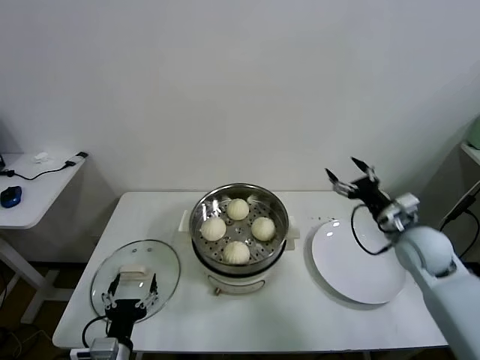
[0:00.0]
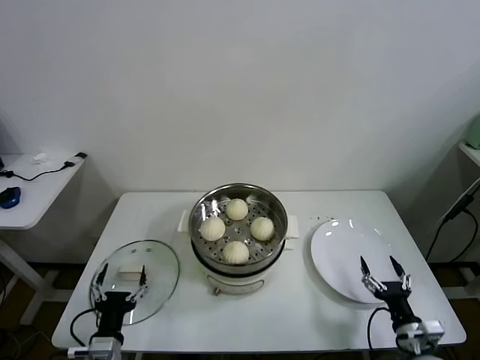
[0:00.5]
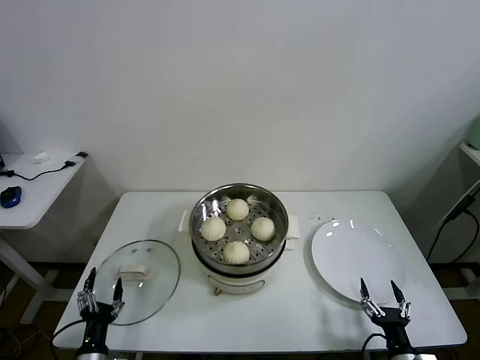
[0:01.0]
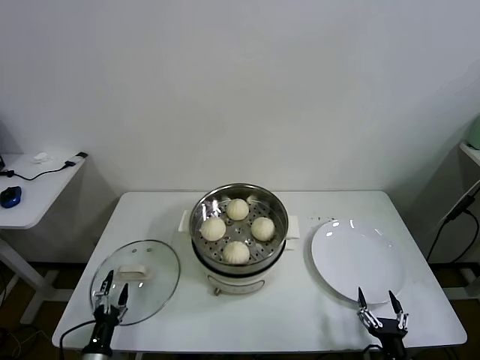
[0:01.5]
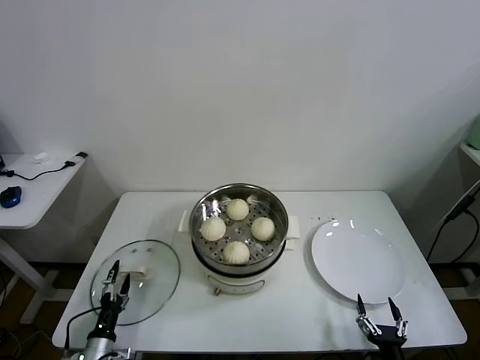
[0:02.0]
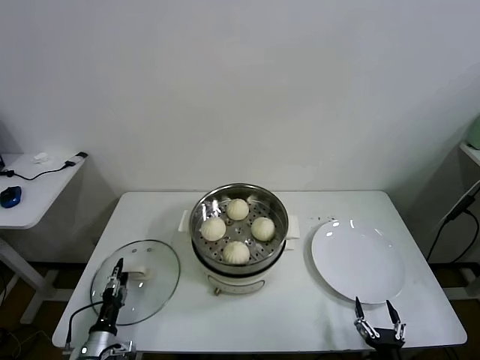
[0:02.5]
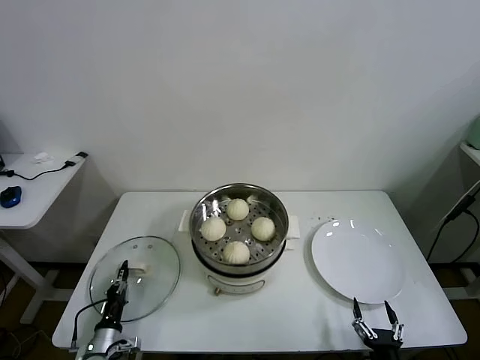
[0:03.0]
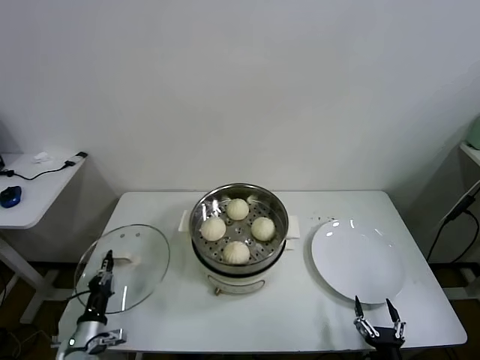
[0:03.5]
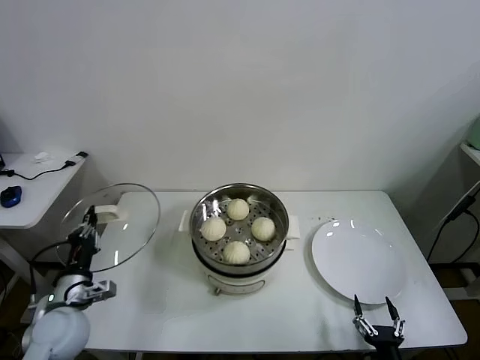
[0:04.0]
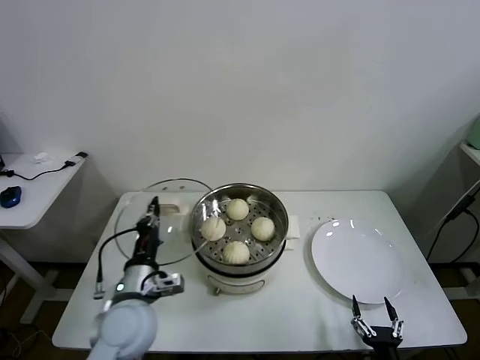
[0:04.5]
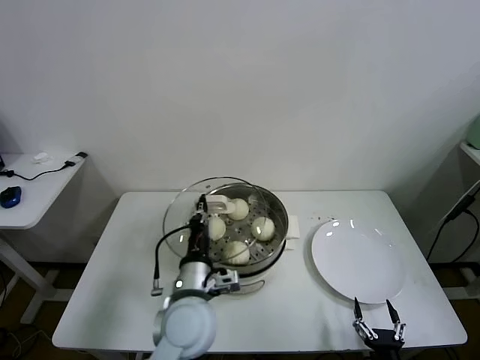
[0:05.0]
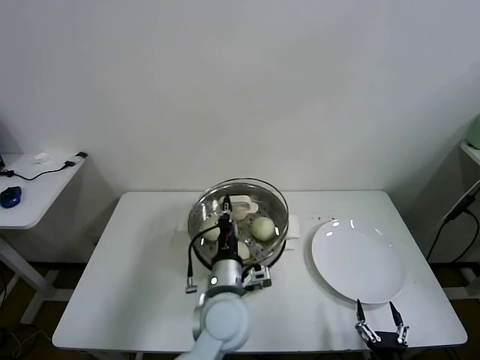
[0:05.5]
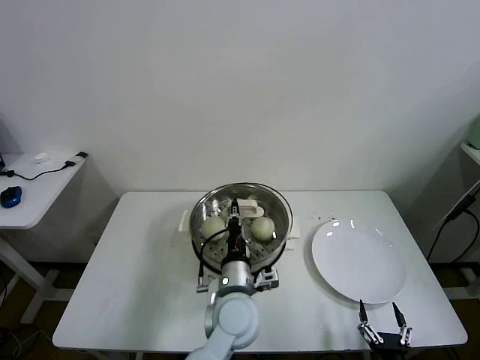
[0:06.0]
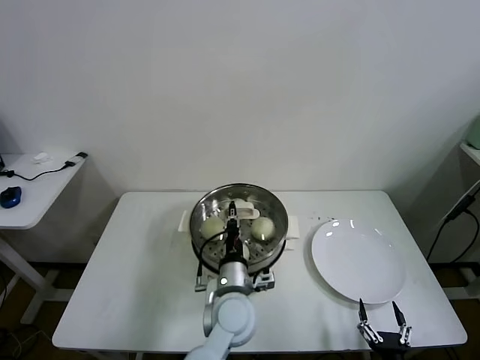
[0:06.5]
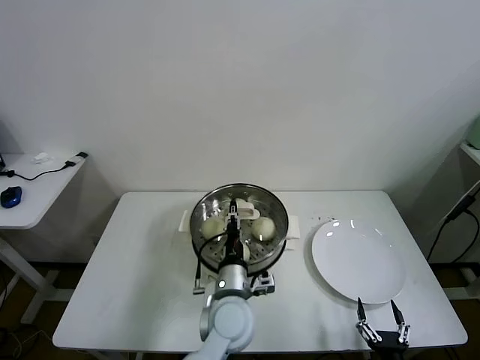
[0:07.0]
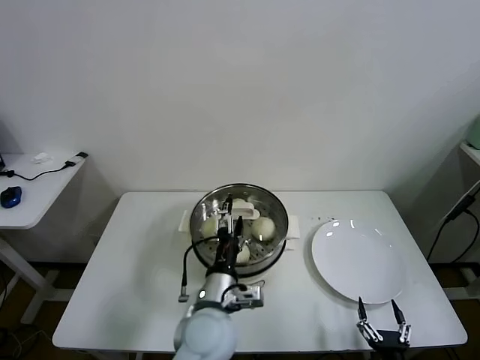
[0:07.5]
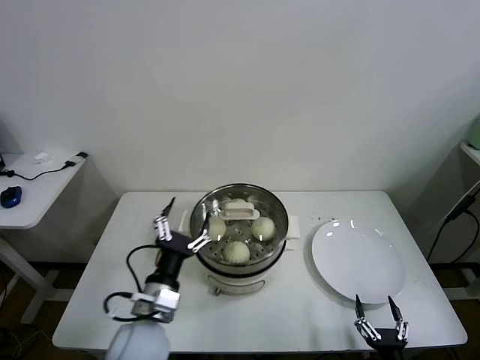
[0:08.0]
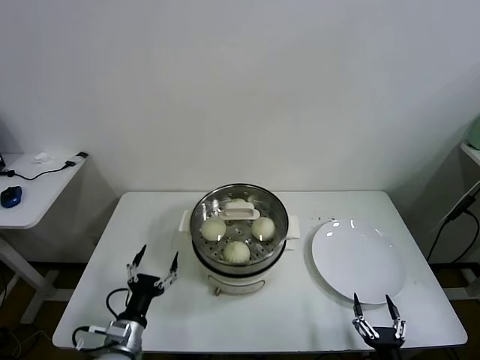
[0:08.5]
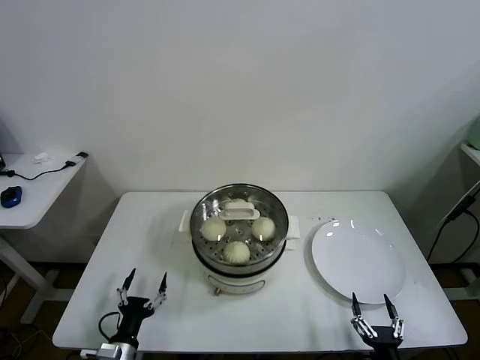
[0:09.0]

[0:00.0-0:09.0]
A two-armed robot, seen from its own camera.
Task of the whole recording: take steamed baozi put them in steamer.
Step, 0:00.0 to 0:03.0: Grasp the pot lid with left gripper.
Step, 0:03.5 to 0:07.0: Place the pot lid on the steamer with left gripper.
0:00.0 to 0:02.0: The right gripper shifts roughly 35 cm backward and downward; the left gripper shifts roughly 20 cm downward and to the left.
0:02.0 to 0:04.5: The left gripper is displaced upward and to the right by approximately 25 cm, and closes its fingers.
0:04.5 to 0:07.0: The left gripper moves to the right, approximately 20 cm.
0:07.0 to 0:09.0: The left gripper travels to the left, downward and backward by approximately 35 cm, and opens.

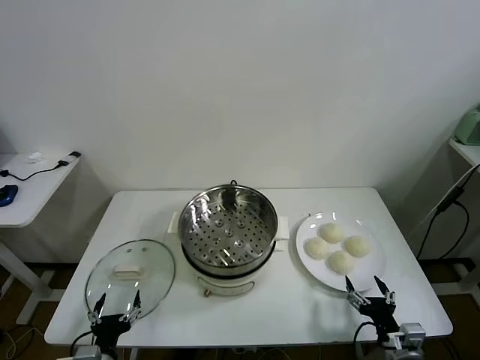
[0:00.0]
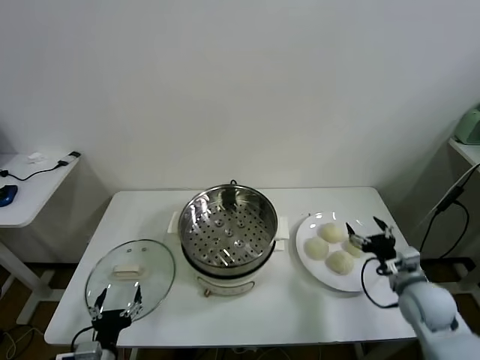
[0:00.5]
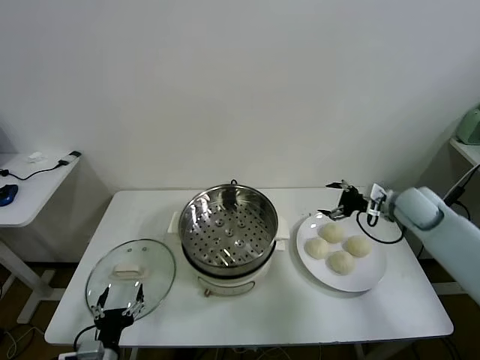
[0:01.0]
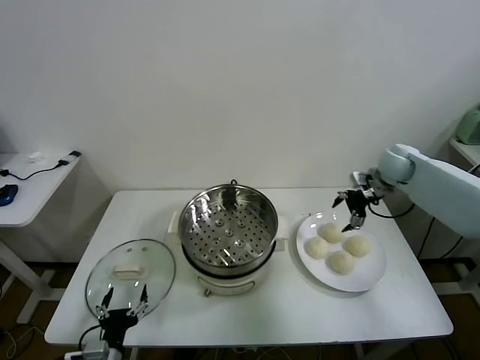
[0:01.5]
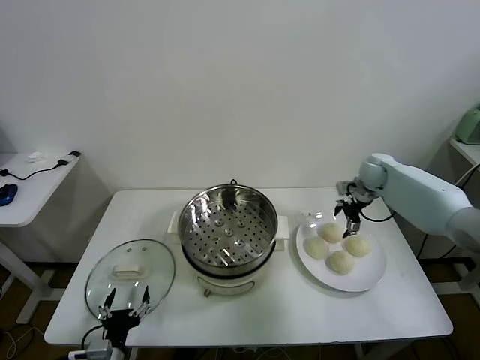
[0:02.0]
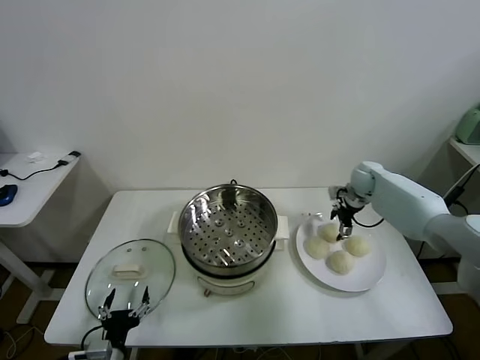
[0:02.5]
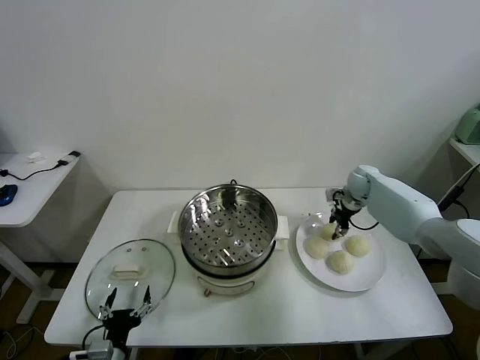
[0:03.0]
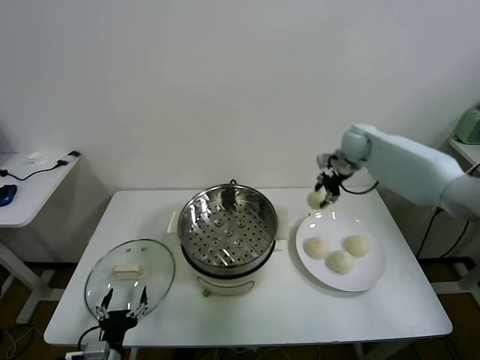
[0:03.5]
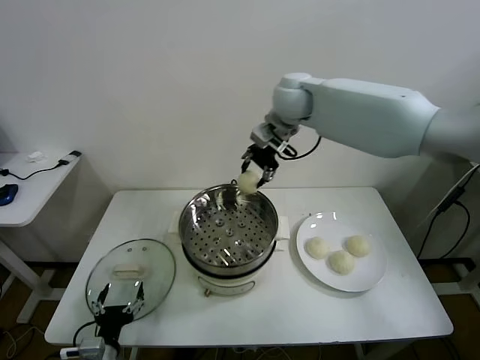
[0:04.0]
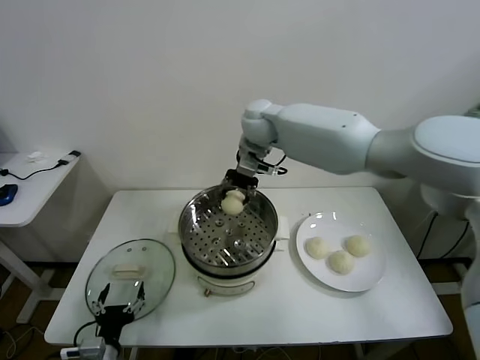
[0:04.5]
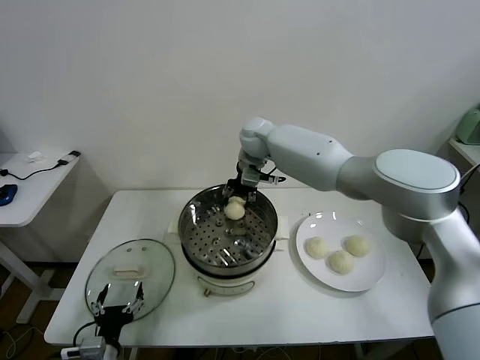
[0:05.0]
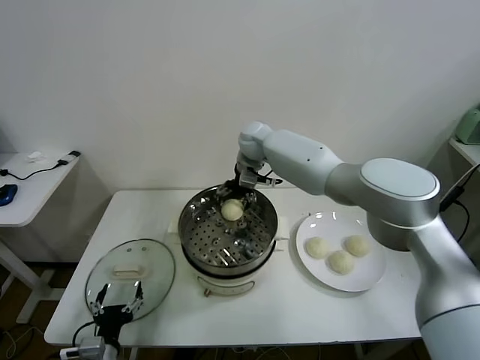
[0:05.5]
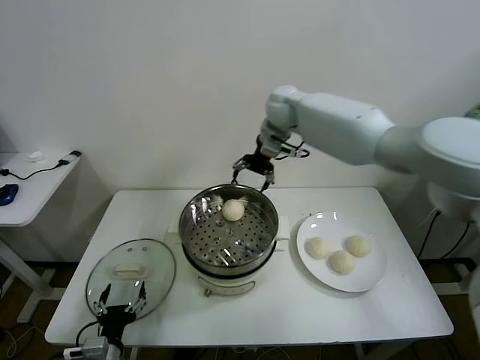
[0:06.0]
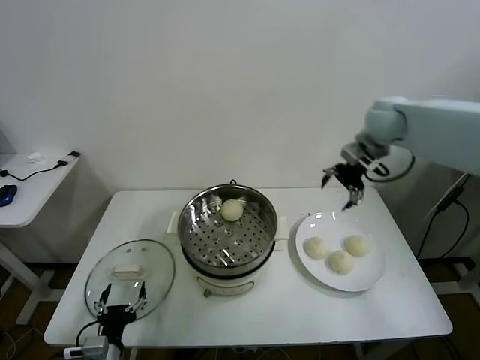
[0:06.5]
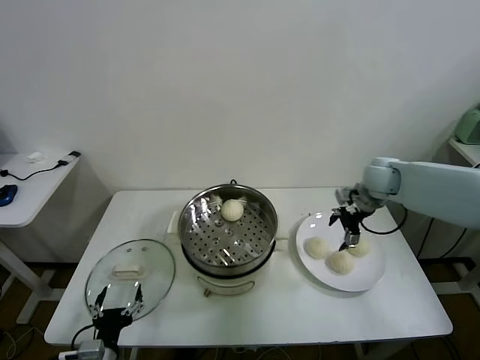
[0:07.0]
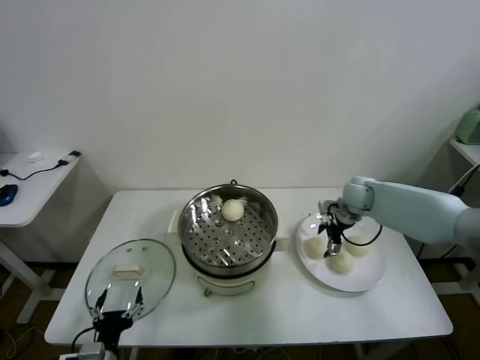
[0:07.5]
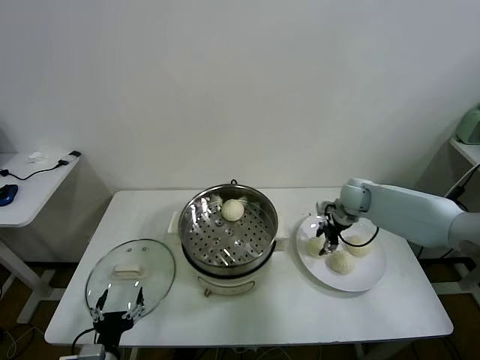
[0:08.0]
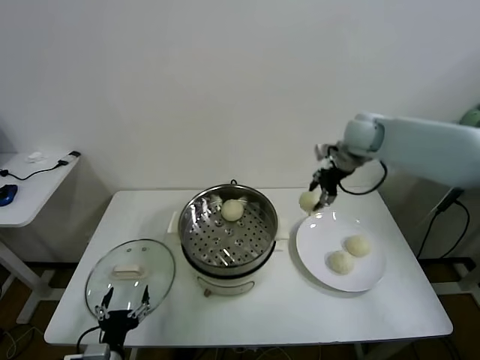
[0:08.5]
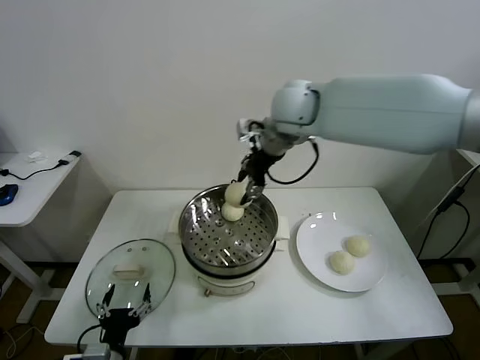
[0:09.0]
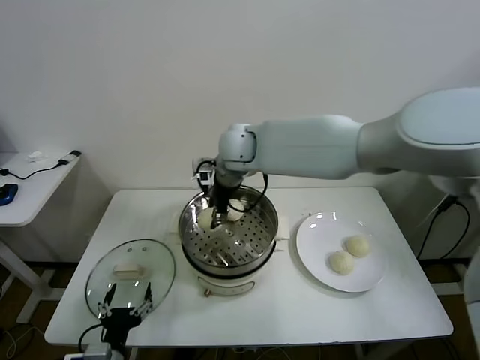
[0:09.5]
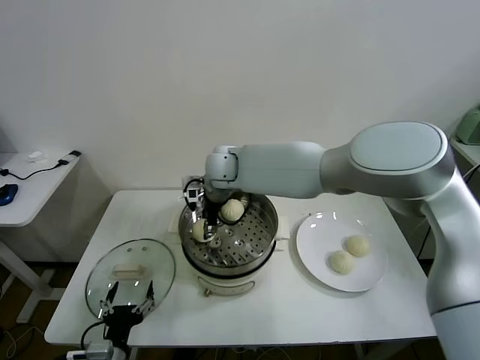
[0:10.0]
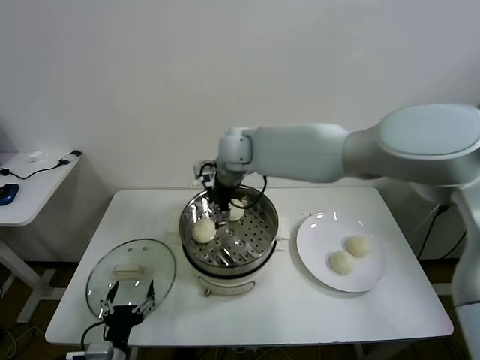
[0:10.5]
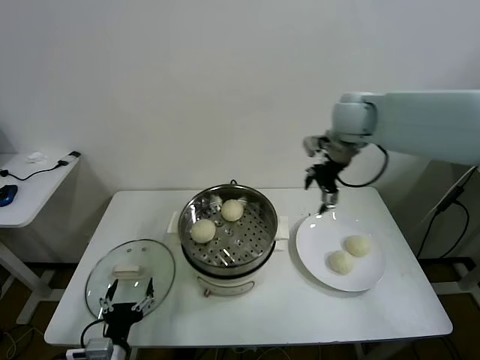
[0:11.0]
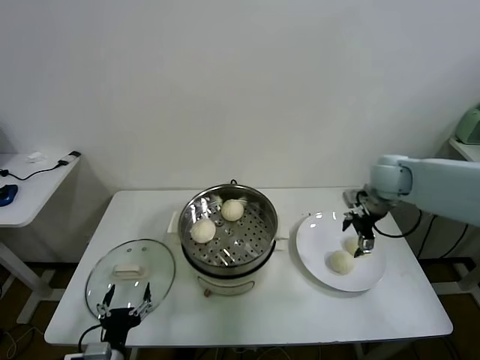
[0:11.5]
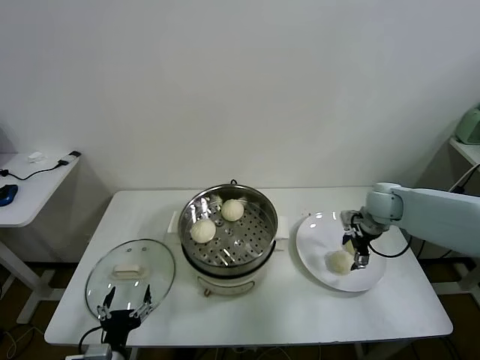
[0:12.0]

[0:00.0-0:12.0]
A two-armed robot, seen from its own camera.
Task of the whole recording: take steamed baozi put them in steamer.
Step, 0:00.0 to 0:02.5: Grasp the baozi in the plate with right gripper.
Step, 0:03.0 to 0:05.0: Place the baozi on the steamer with right gripper.
Step, 0:06.0 to 0:07.5: Grasp the baozi in the plate with right gripper.
Step, 0:08.5 to 0:10.0: Place the baozi on the steamer with right gripper.
0:02.0 to 0:04.0: The right gripper moves to the left and upward, approximately 35 cm, and closes its fingers.
0:04.0 to 0:06.0: The right gripper goes approximately 10 cm to the right and forward, travels downward and back again, roughly 15 cm each way, and opens.
0:06.0 to 0:08.0: The right gripper shifts some 30 cm downward and to the right, and closes.
0:08.0 to 0:10.0: The right gripper is displaced to the left by about 35 cm.
0:10.0 to 0:12.0: The right gripper heads to the right, covering approximately 40 cm, and opens.

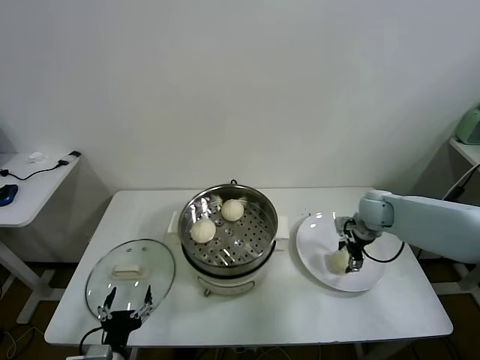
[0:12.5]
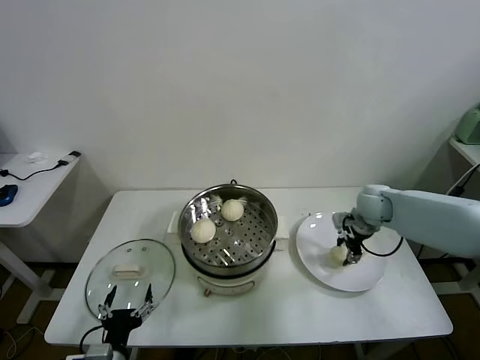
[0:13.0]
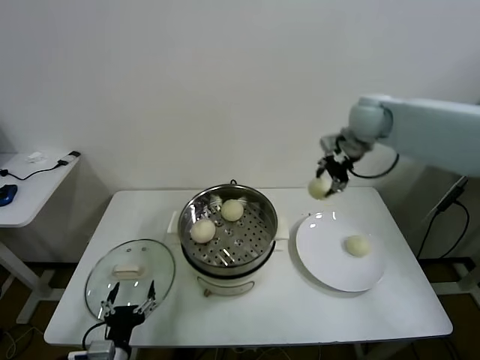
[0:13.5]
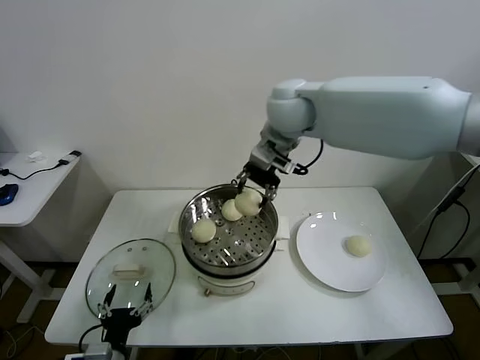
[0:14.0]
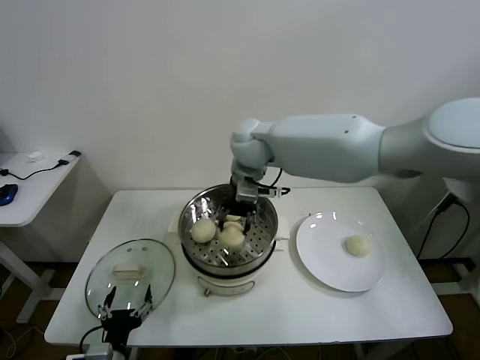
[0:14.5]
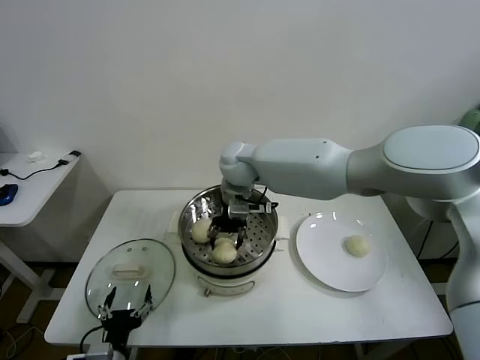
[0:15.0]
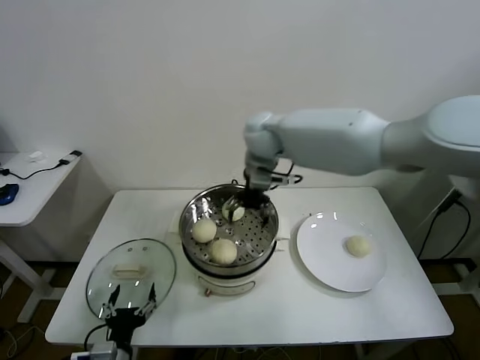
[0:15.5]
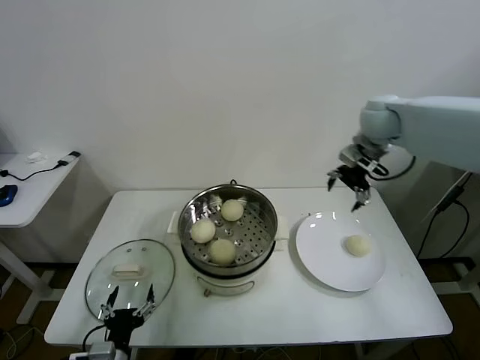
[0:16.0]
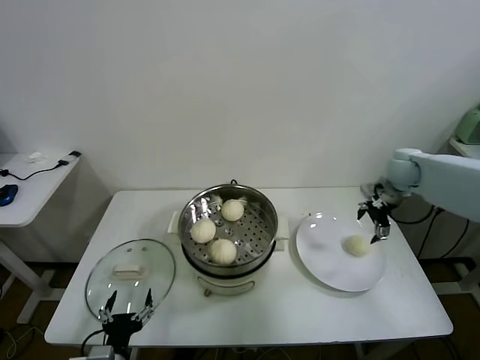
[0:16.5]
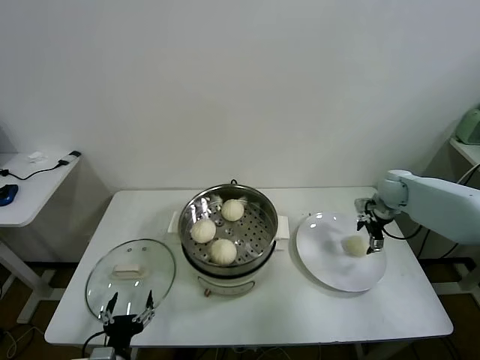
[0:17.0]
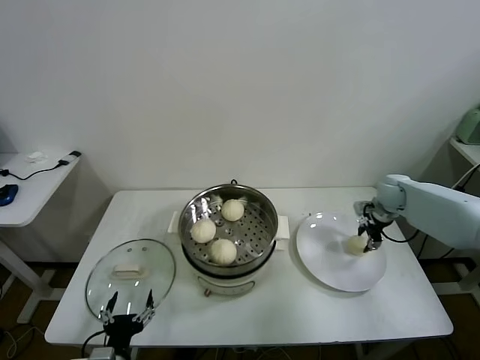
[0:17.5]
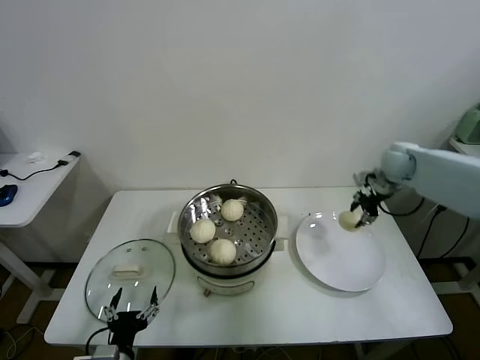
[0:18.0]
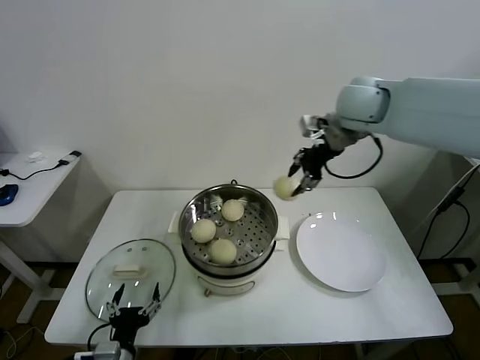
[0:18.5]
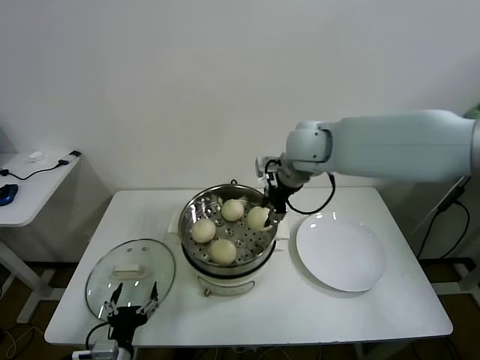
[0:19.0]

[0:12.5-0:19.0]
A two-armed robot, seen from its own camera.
Task of the whole recording: take steamed baozi put them in steamer.
Step, 0:13.0 to 0:15.0: Place the baozi on the steamer with right gripper.
Step, 0:15.5 to 0:17.5: Grasp the baozi in the plate with right gripper.
0:12.5 to 0:14.5: The right gripper goes approximately 35 cm to the left and upward, and closes its fingers.
0:14.5 to 0:17.0: The right gripper is displaced to the right and downward by some 40 cm, and opens its fingers.
0:17.0 to 0:19.0: The right gripper is displaced to the left and upward by approximately 35 cm, and closes its fingers.
